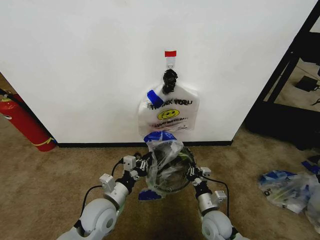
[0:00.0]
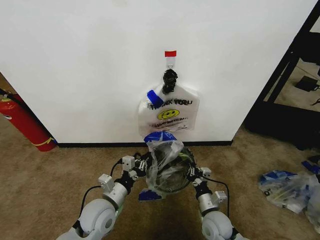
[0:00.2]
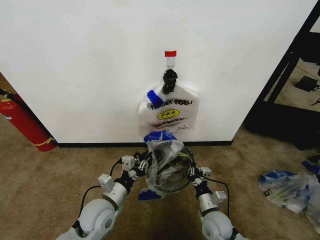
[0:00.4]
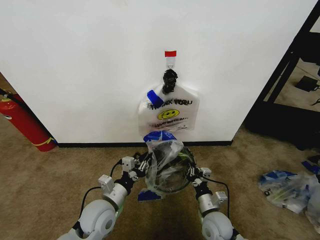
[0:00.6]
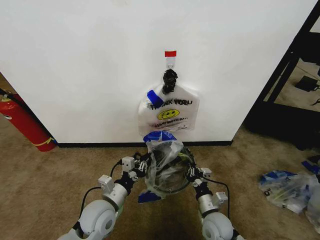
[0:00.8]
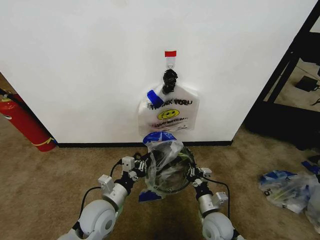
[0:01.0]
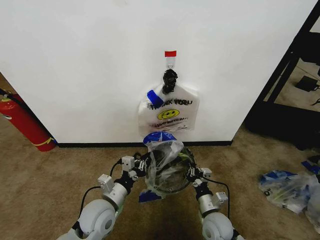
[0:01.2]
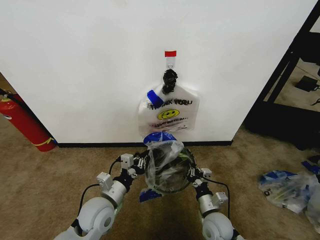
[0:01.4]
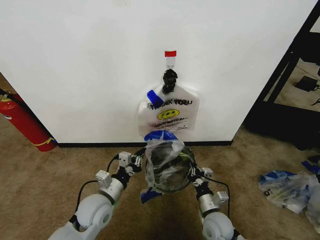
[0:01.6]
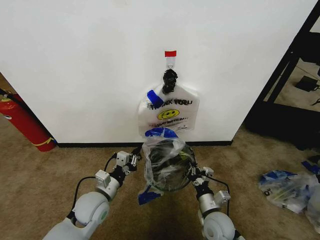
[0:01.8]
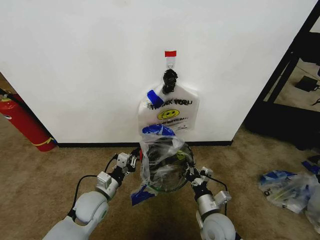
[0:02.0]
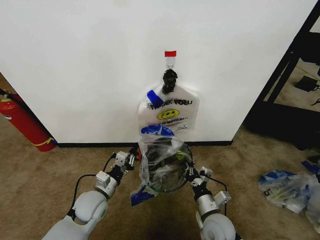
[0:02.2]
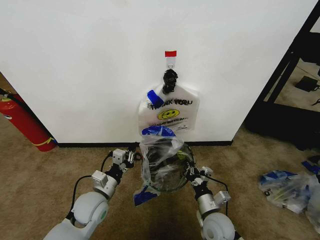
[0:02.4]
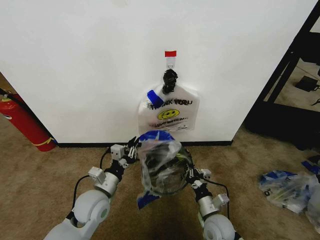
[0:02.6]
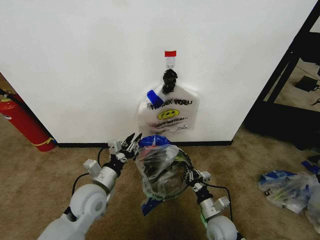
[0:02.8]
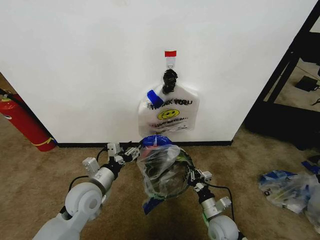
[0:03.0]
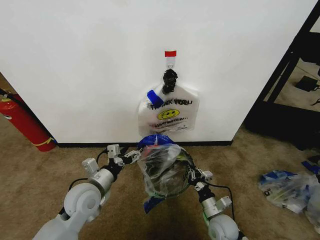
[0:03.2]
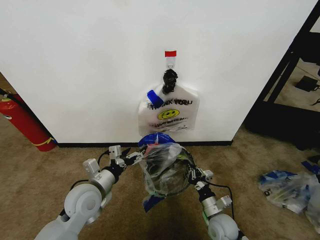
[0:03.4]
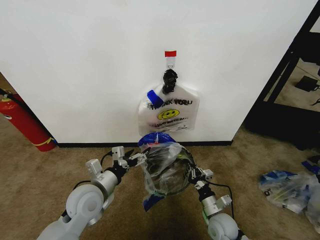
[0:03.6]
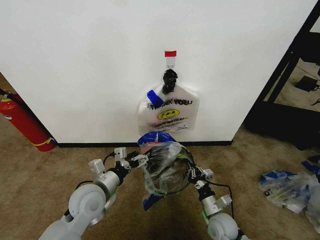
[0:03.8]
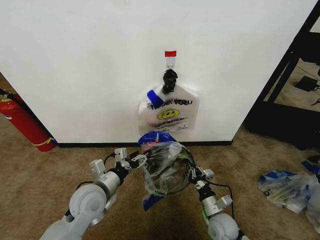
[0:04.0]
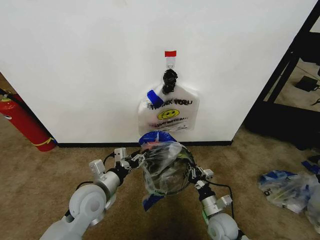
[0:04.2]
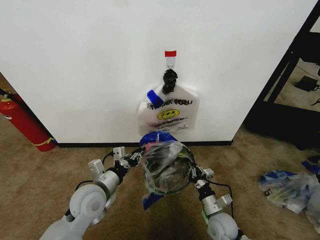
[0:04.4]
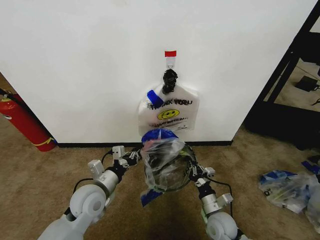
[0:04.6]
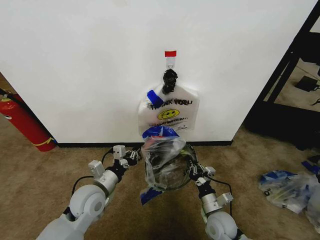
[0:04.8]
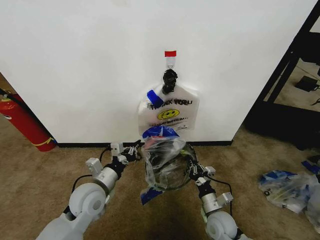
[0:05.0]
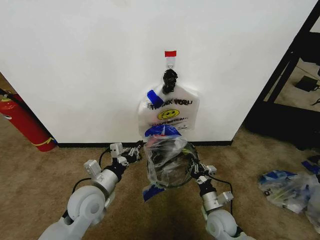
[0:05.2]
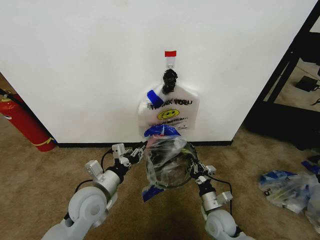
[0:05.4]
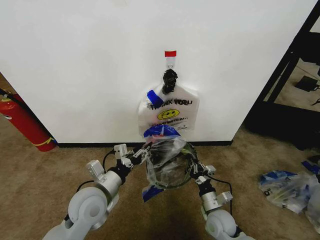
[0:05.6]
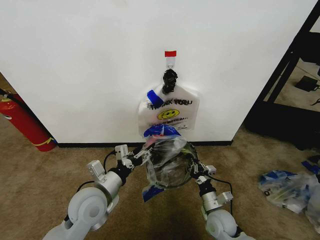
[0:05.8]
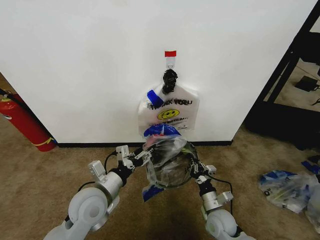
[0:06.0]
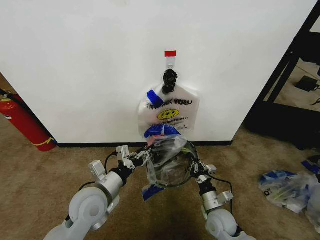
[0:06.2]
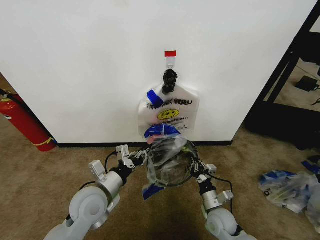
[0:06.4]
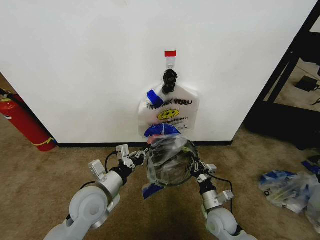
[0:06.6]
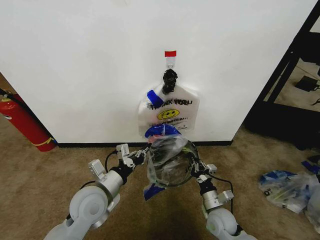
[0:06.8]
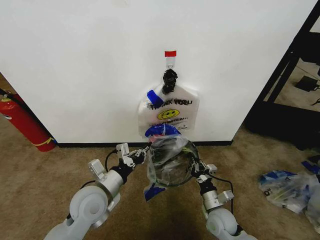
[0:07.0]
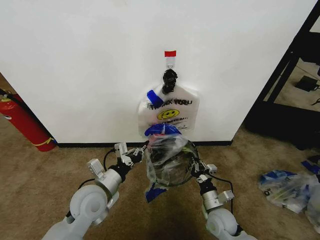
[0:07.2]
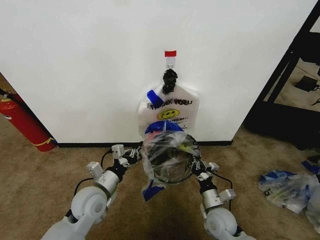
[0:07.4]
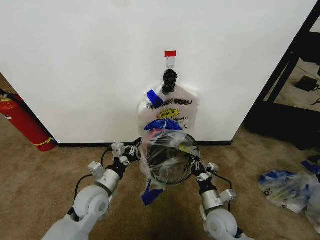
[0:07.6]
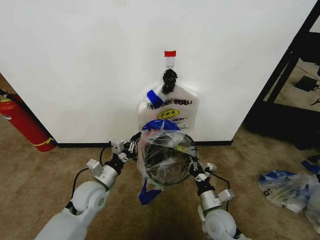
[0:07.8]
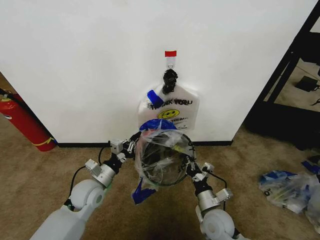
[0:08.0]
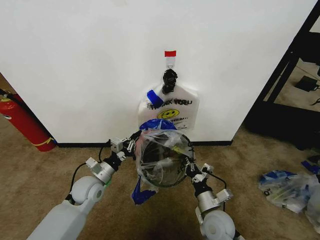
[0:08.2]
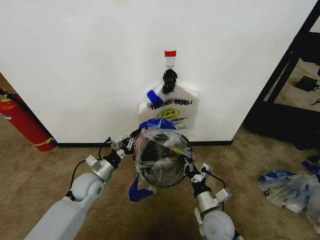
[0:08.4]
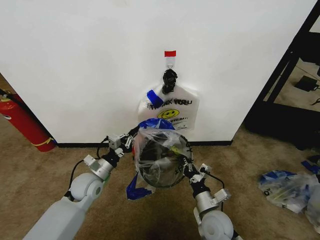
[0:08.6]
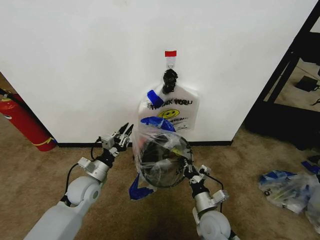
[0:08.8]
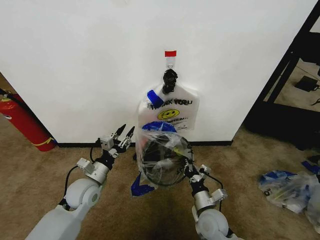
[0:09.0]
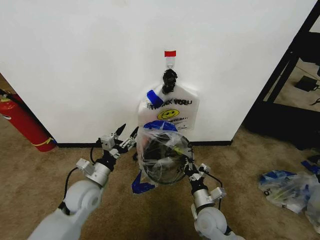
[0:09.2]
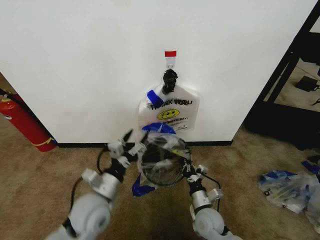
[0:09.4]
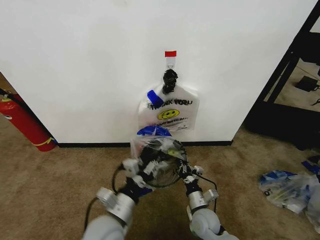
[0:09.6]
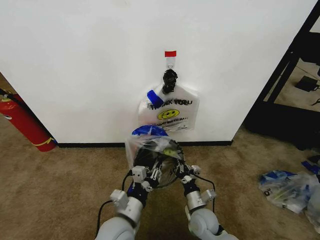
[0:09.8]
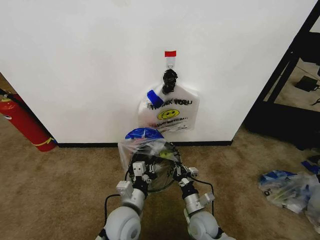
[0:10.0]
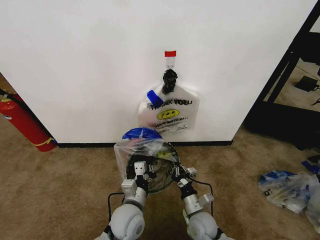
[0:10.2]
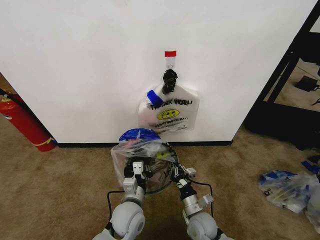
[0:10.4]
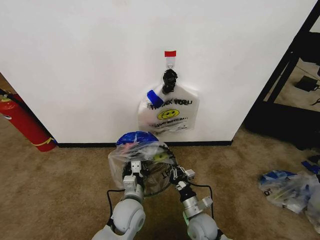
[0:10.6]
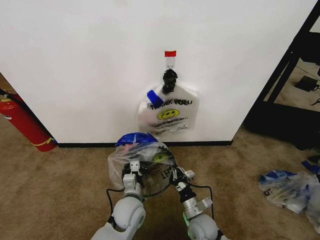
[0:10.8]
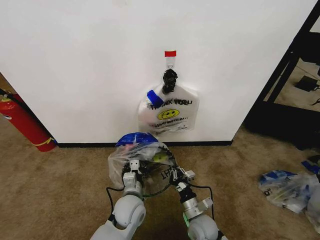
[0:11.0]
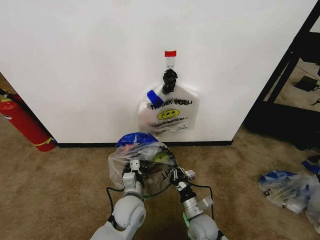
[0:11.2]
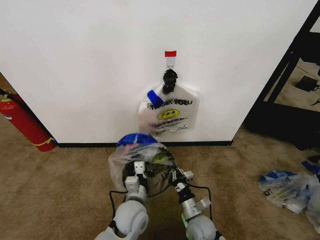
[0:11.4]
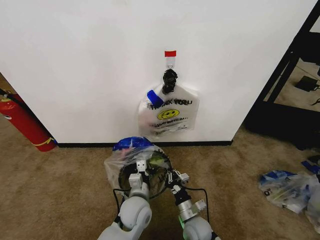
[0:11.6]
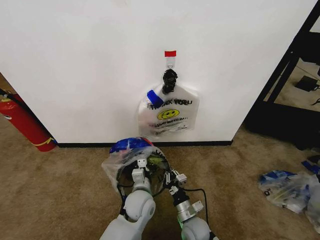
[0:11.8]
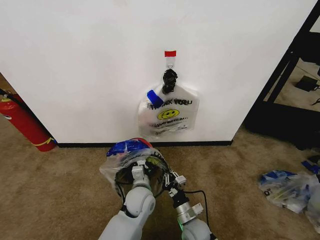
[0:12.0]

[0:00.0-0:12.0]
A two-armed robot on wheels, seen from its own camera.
Task of the whole recording: Pick up the garbage bag from the wall and place it over the trash bin.
0:00.0 to 0:01.6: The grippers move only a little.
0:01.6 to 0:03.0: The left gripper moves some 5 cm, and opens its fingers.
0:03.0 to 0:04.4: The left gripper closes its fingers.
0:04.4 to 0:06.0: The left gripper opens.
0:06.0 to 0:07.6: The left gripper changes place by roughly 5 cm, and closes up.
0:07.6 to 0:09.0: The left gripper opens up.
0:09.0 to 0:10.4: The left gripper shifts approximately 15 cm to the right and backward, and closes.
0:10.4 to 0:12.0: The left gripper shifts some 5 cm forward.

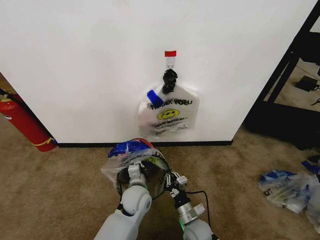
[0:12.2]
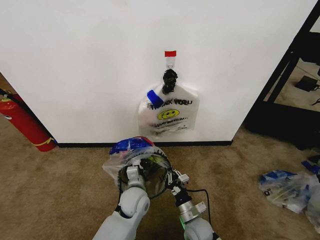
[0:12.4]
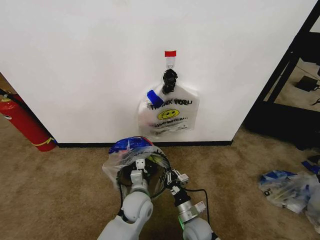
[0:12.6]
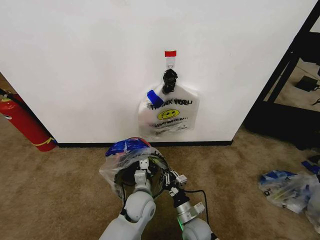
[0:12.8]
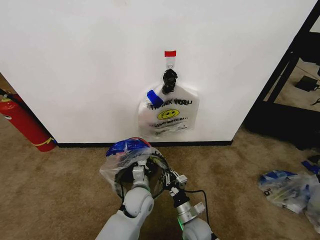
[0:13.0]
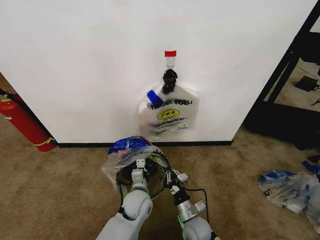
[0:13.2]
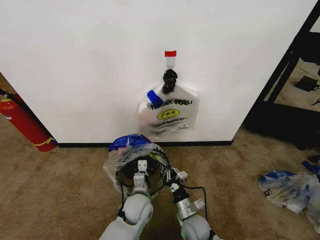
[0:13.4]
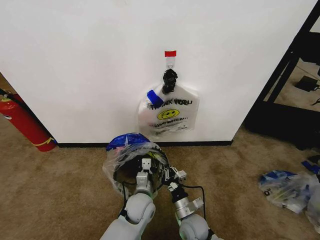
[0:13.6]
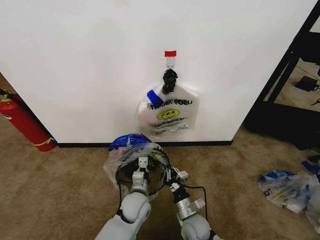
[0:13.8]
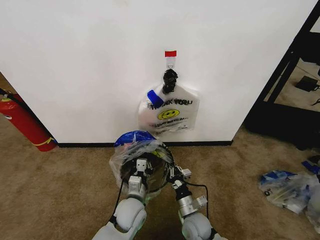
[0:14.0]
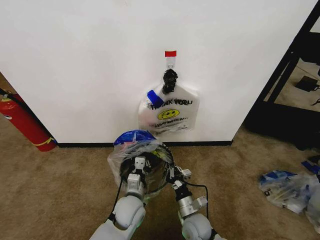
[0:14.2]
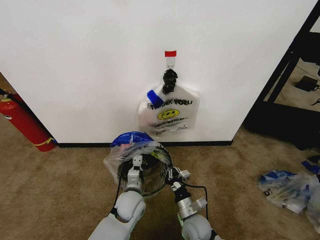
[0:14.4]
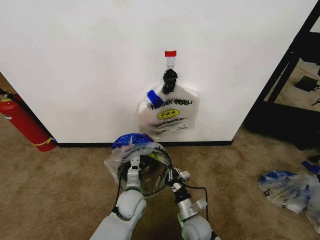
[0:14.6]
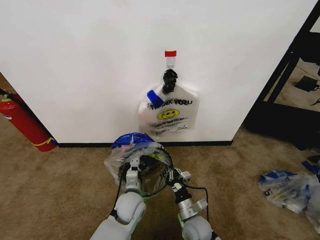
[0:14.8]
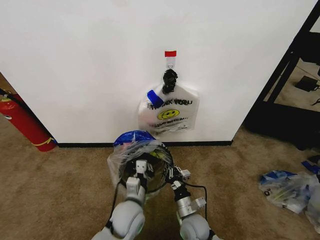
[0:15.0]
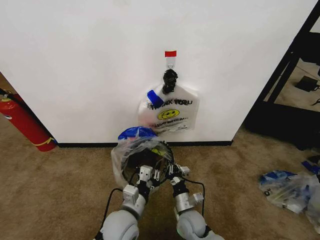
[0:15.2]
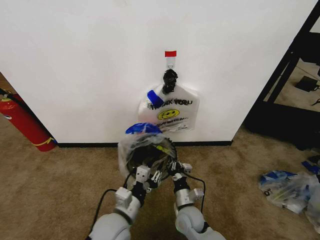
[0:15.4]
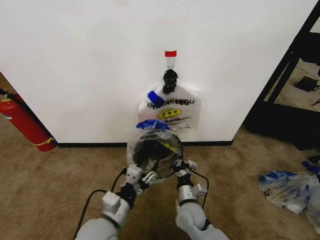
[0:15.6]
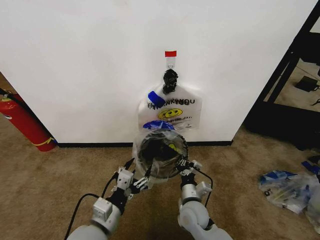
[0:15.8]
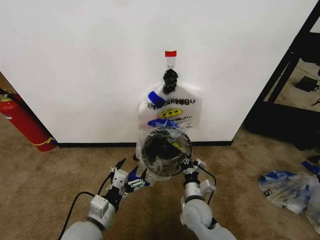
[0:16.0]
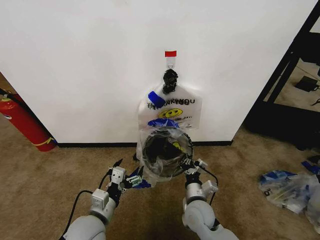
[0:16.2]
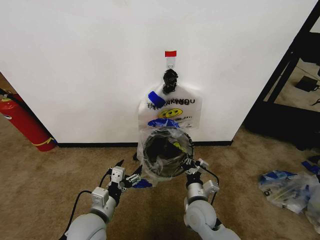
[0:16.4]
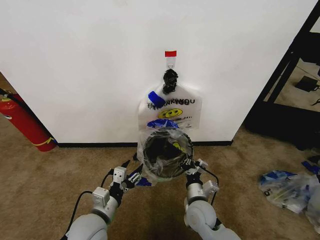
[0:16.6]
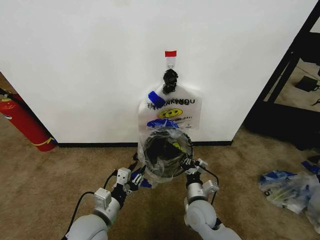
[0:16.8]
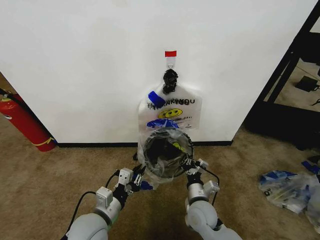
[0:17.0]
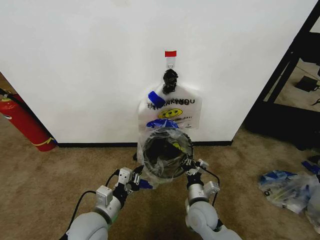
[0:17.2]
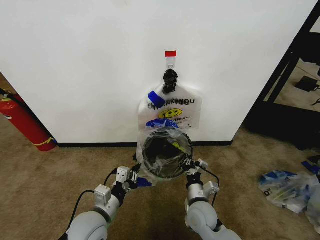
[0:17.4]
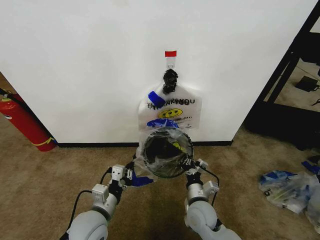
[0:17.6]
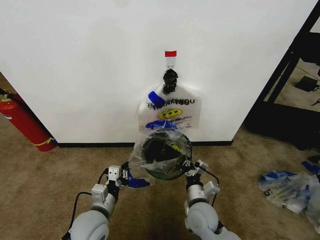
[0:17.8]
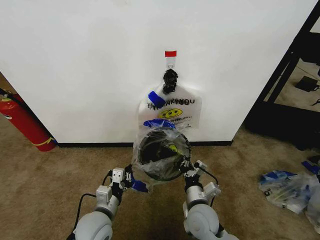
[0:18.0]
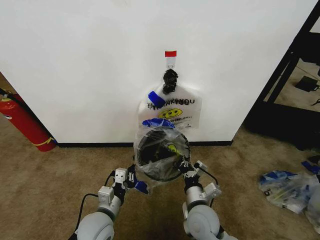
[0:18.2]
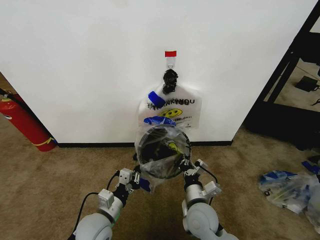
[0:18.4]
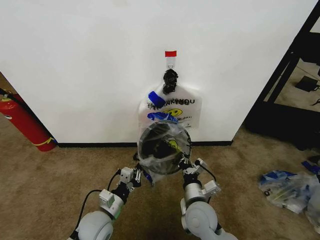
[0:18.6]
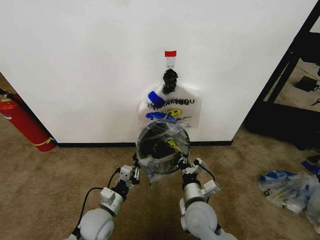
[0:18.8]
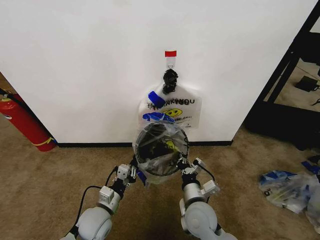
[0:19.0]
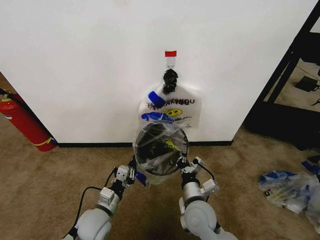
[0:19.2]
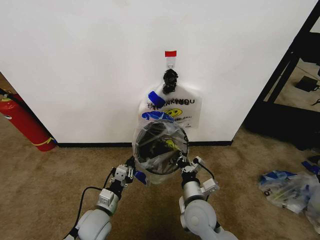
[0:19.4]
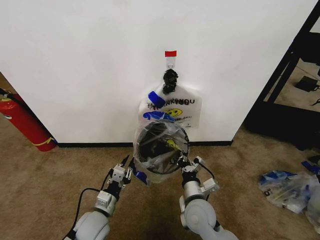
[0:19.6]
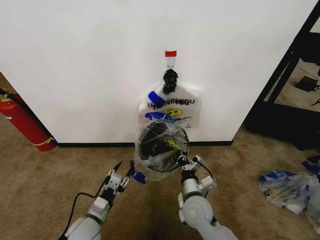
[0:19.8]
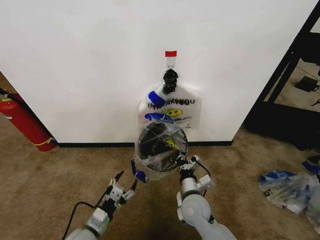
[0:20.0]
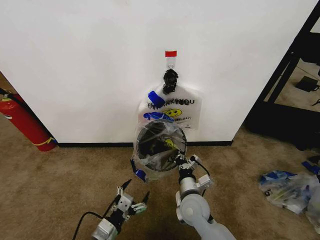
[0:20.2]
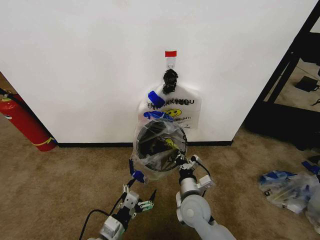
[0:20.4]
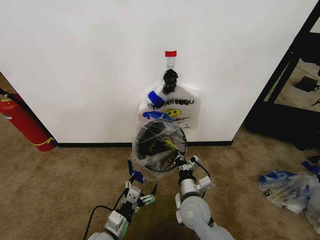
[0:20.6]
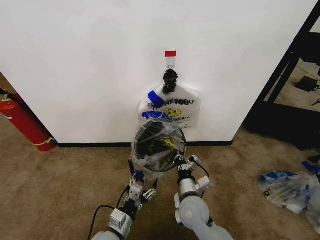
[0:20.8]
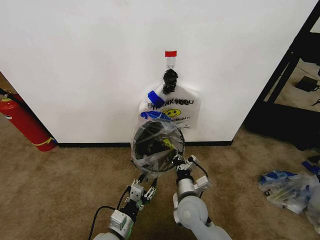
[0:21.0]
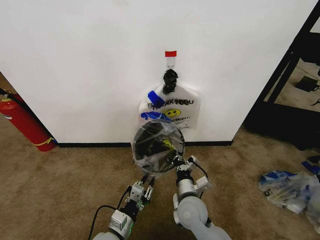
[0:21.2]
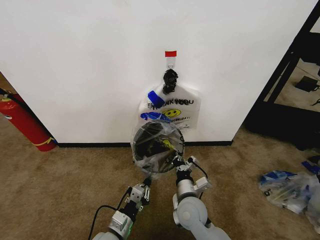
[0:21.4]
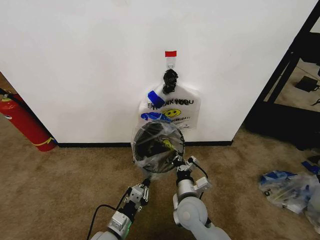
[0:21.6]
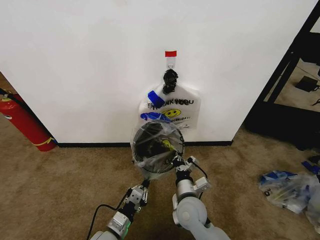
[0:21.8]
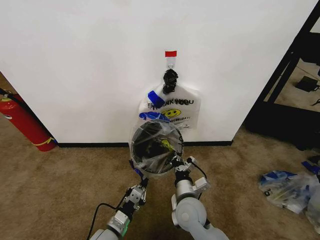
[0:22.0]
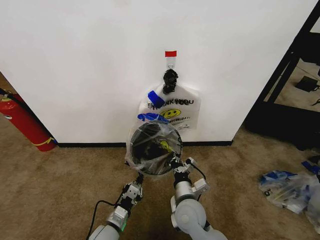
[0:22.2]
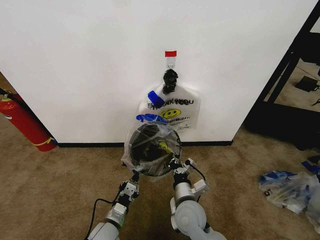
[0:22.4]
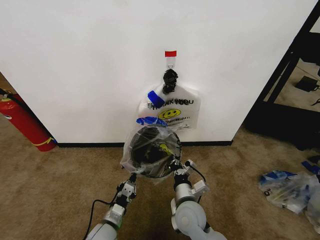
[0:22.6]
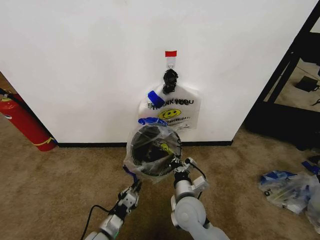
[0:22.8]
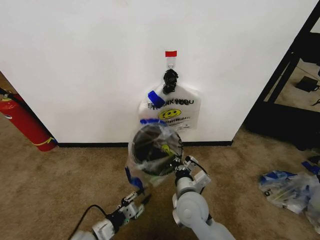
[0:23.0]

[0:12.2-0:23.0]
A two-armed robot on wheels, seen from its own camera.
Task of the whole recording: Pick up the garbage bag from the wall and place it over the trash bin.
0:12.2 to 0:13.8: There are only small adjustments of the grippers.
0:13.8 to 0:15.2: The left gripper heads backward and upward, covering roughly 10 cm.
0:15.2 to 0:16.8: The right gripper goes approximately 5 cm upward. Meanwhile the left gripper heads to the left, covering about 10 cm, and opens, then closes once more.
0:16.8 to 0:18.4: The left gripper closes.
0:18.4 to 0:20.0: The left gripper changes place by some 5 cm, and opens.
0:20.0 to 0:21.4: The left gripper travels to the right by approximately 10 cm, and closes.
0:21.4 to 0:23.0: The left gripper moves to the left, about 10 cm.
